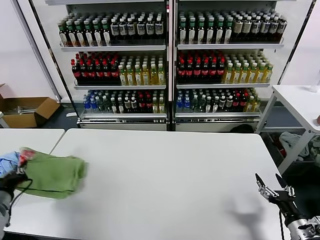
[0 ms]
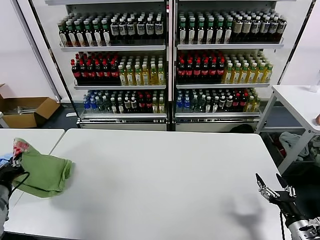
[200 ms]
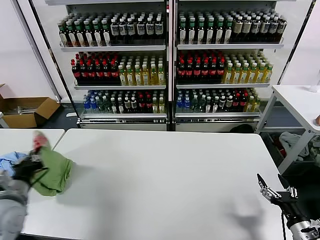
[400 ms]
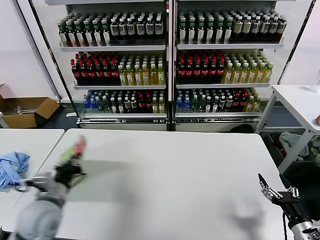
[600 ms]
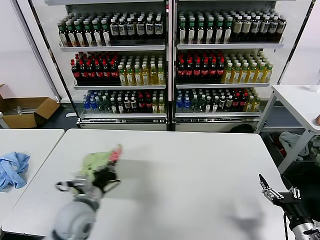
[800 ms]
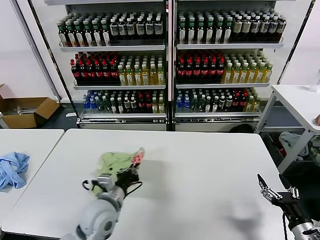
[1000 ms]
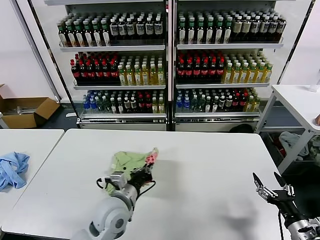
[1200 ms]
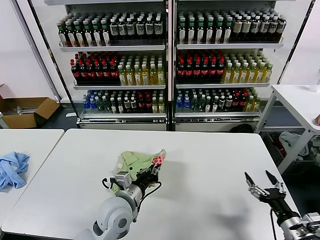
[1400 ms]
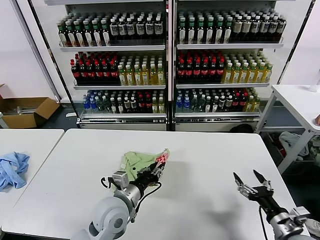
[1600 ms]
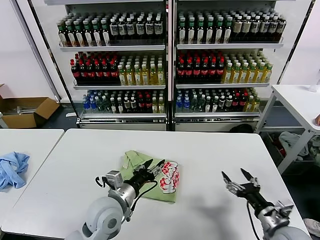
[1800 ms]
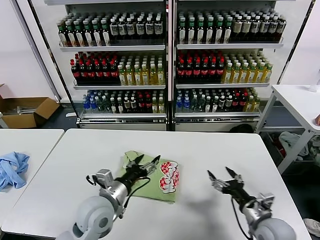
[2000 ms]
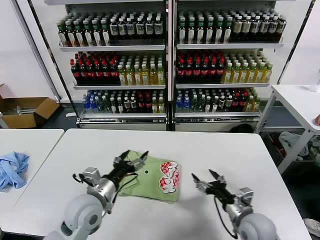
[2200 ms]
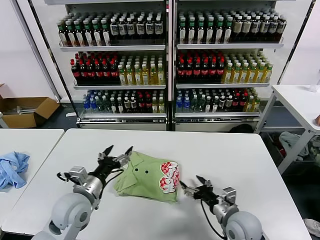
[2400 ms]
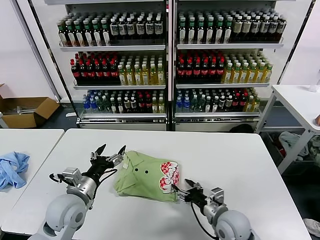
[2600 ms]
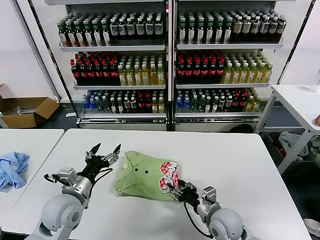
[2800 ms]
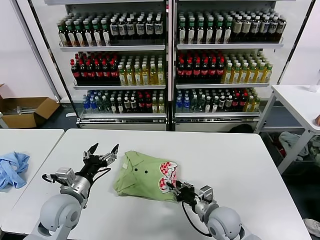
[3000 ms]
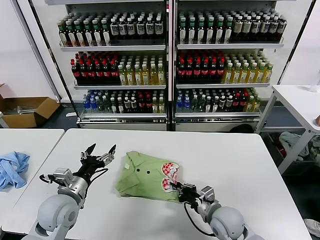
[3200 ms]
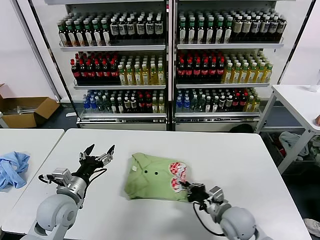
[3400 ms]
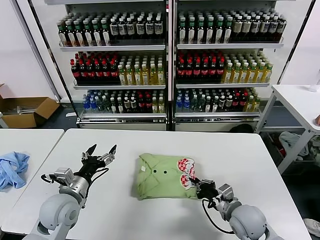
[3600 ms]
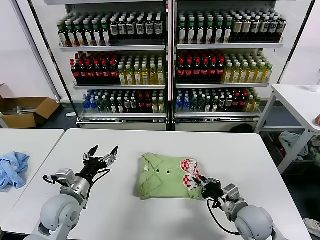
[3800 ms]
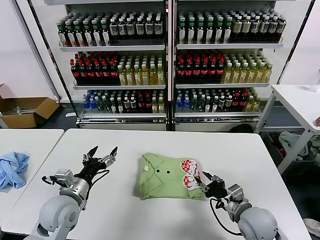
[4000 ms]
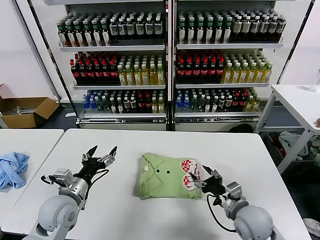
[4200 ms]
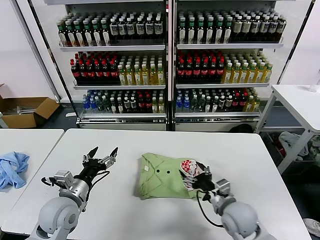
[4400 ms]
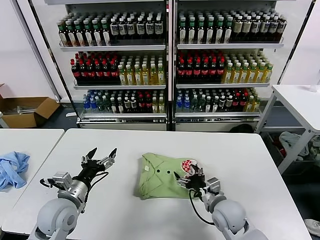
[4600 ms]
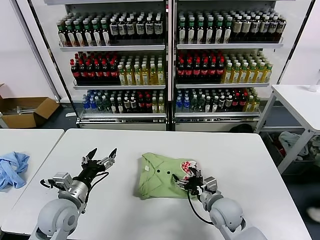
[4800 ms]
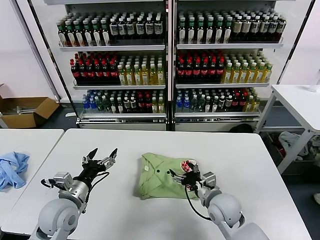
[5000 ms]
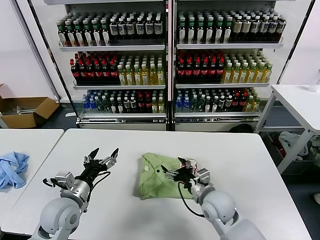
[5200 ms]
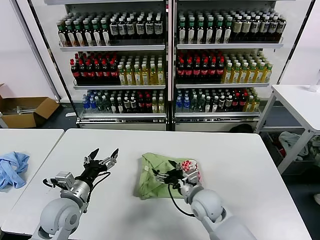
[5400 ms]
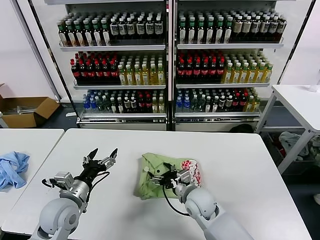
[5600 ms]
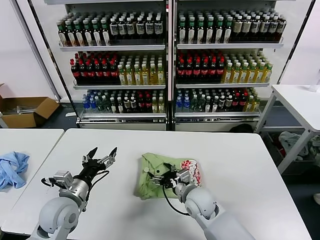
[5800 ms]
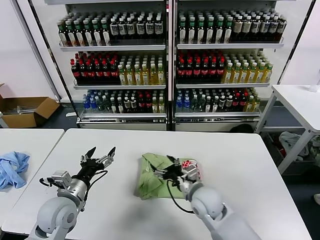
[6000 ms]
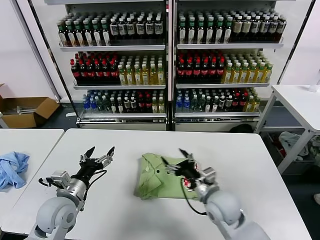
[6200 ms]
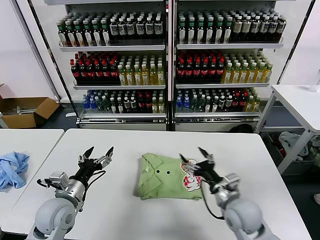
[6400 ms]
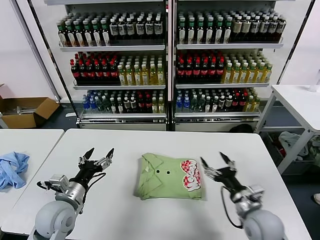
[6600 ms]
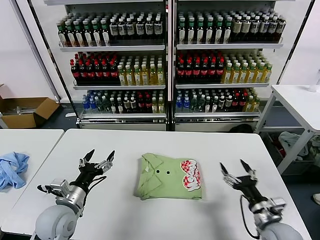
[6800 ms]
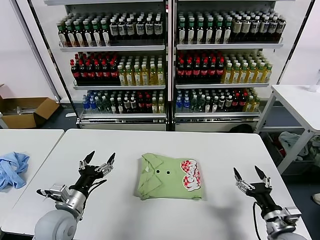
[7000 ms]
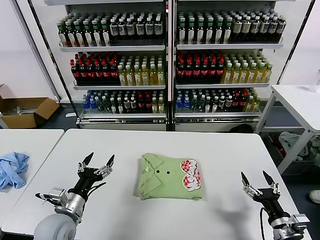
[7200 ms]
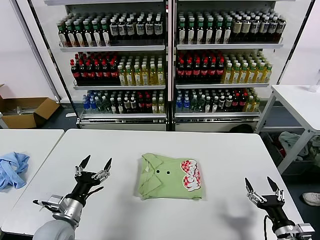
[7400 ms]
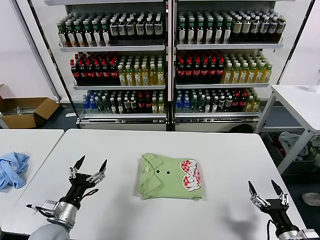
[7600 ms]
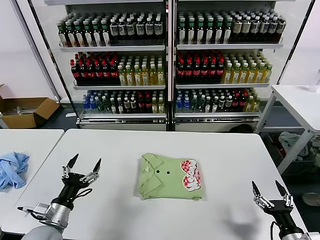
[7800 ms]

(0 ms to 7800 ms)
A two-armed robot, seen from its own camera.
Task of the whole recording: fold and organize the clothes.
Step, 2000 ms - 5800 ms: Drag the clothes to the center of the table.
0 ms - 1600 ms: The left gripper moves to the right, roughly 35 cm, and opens up. The right gripper is displaced to the left by roughly 5 cm.
1600 ms - 3200 ms: The left gripper travels to the left by some 15 cm, and opens up; the right gripper shifts roughly 20 cm to the left and forward, and closes.
3200 ms - 4600 ms: The right gripper opens its fingers.
6200 ms - 7800 ms: The left gripper moves backward, some 5 cm. The right gripper is displaced to the right and backward by approximately 25 cm.
